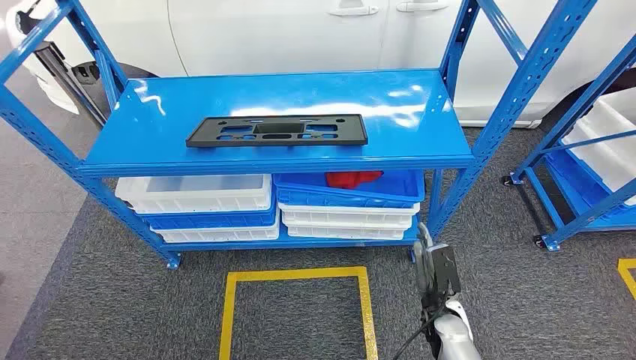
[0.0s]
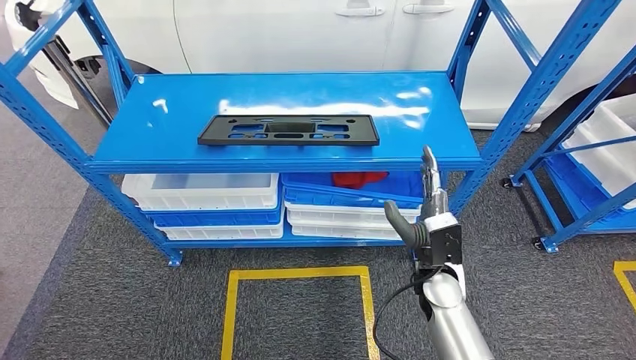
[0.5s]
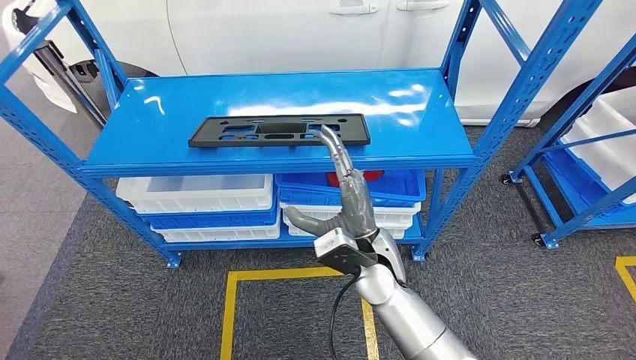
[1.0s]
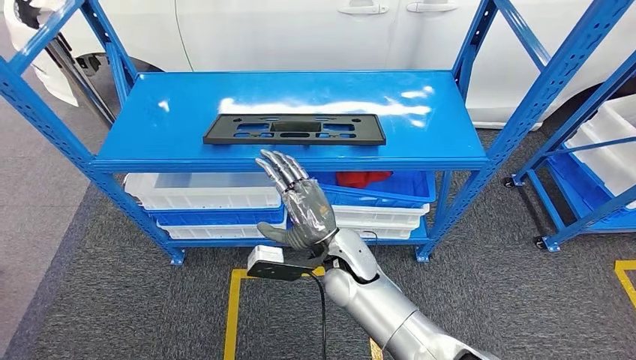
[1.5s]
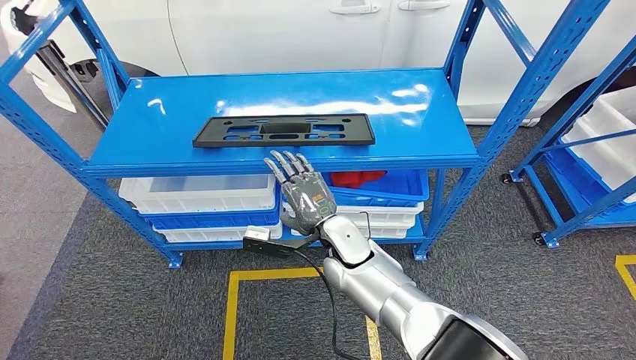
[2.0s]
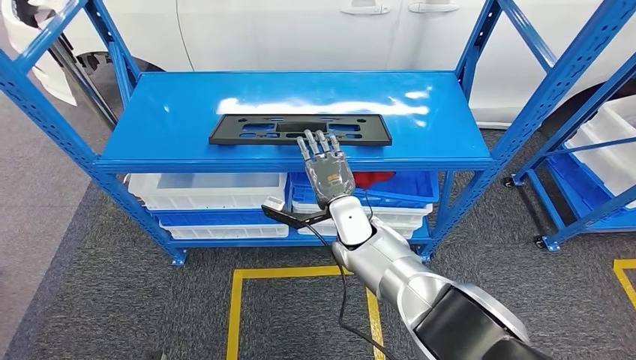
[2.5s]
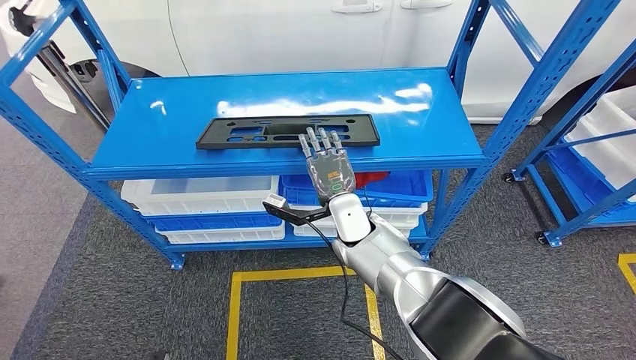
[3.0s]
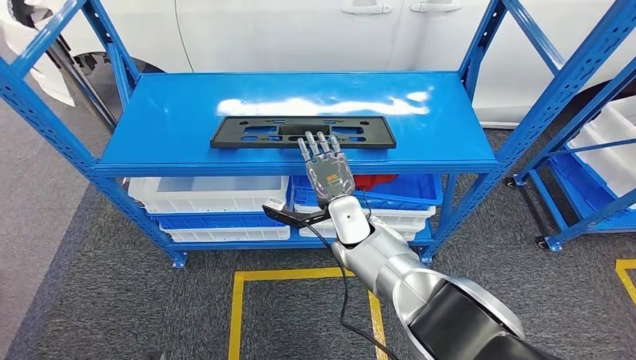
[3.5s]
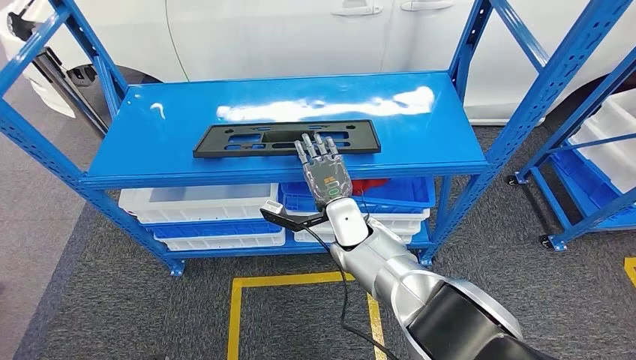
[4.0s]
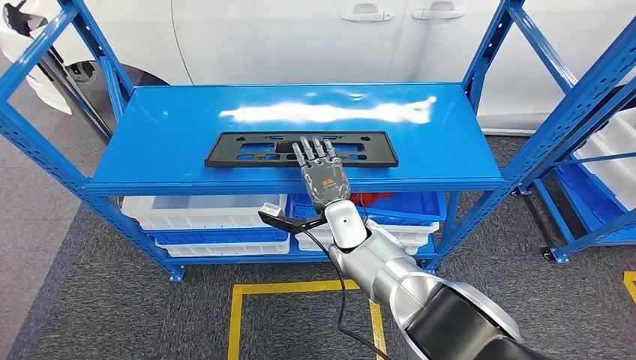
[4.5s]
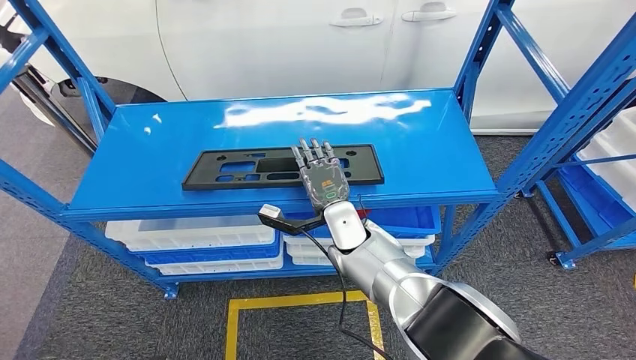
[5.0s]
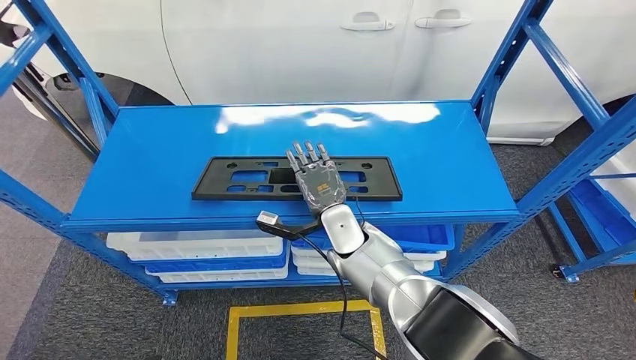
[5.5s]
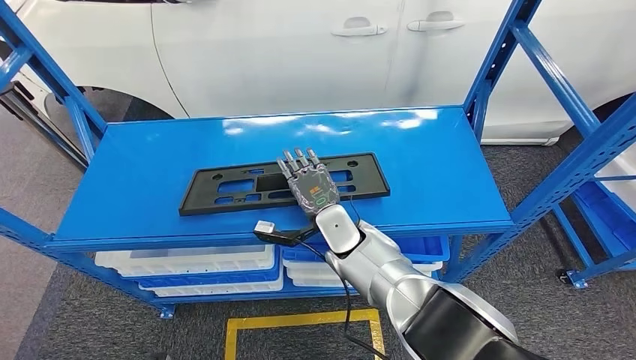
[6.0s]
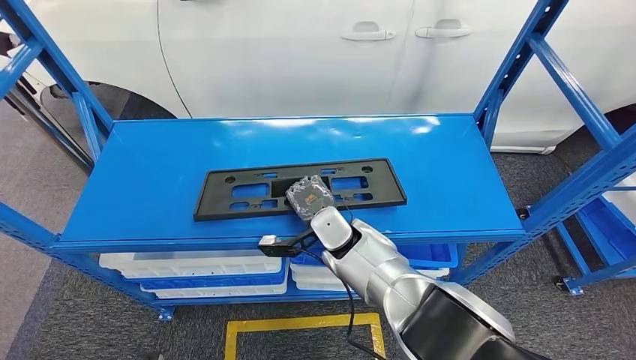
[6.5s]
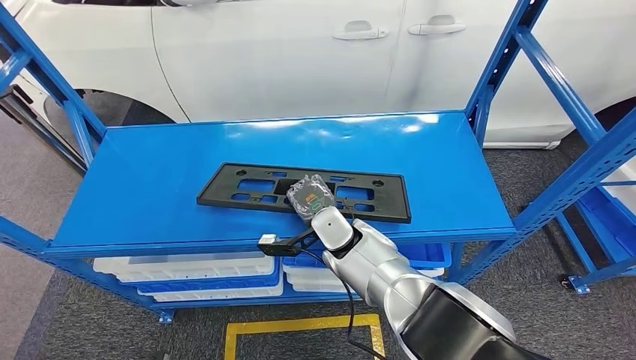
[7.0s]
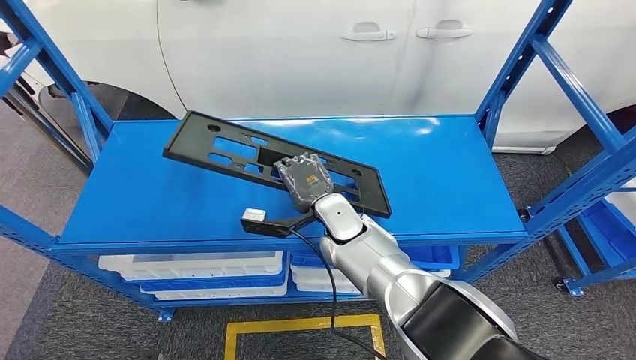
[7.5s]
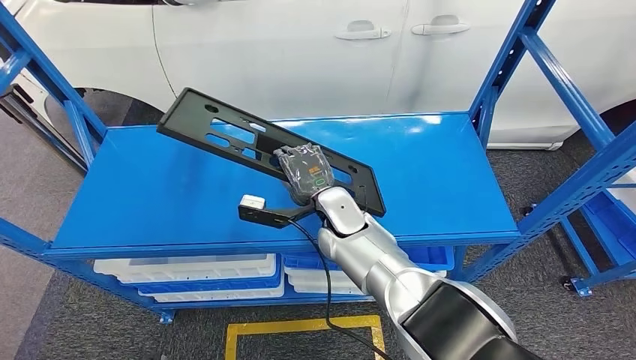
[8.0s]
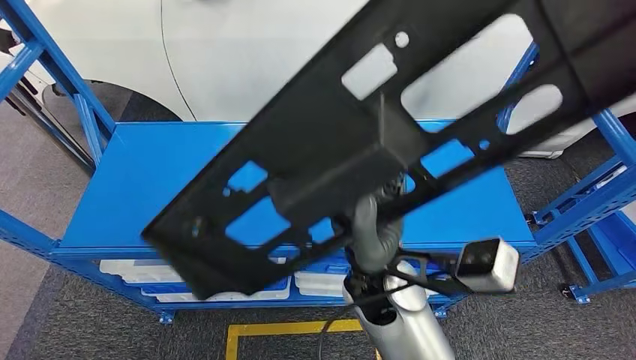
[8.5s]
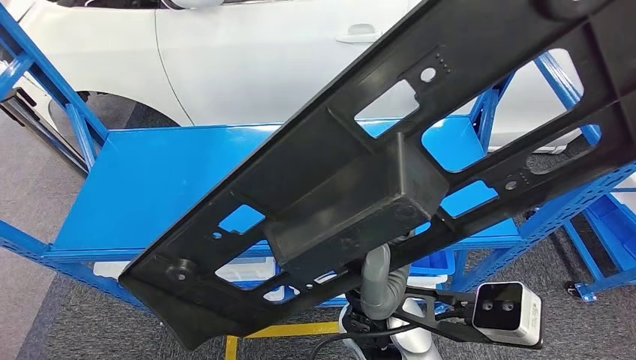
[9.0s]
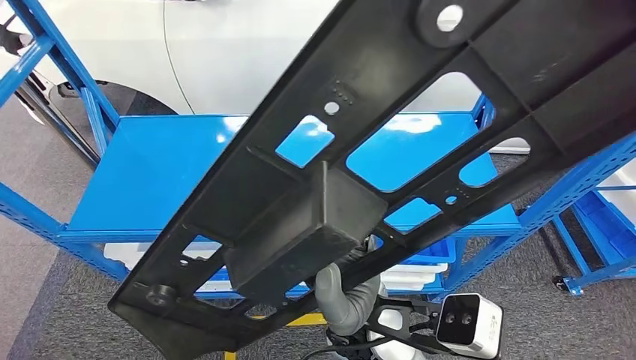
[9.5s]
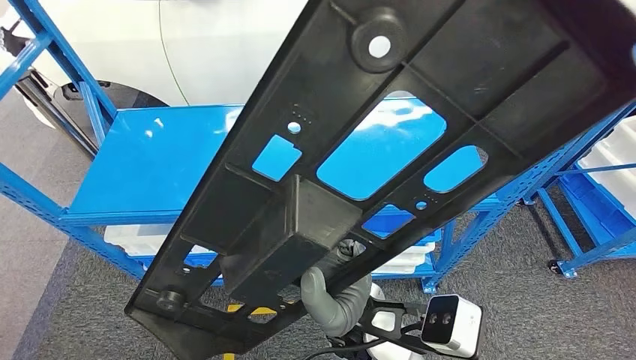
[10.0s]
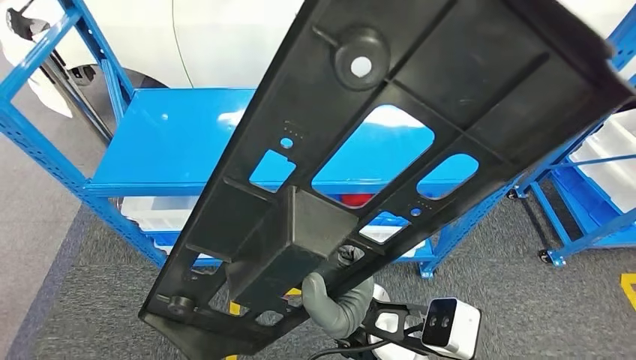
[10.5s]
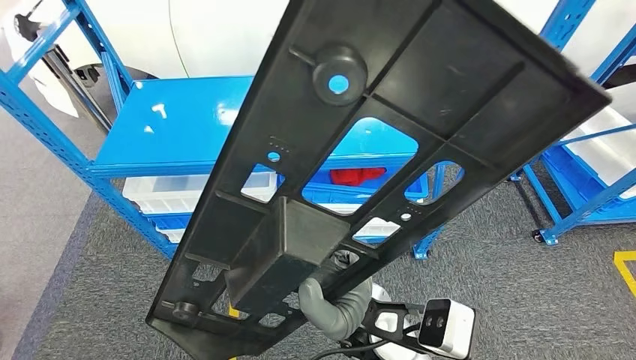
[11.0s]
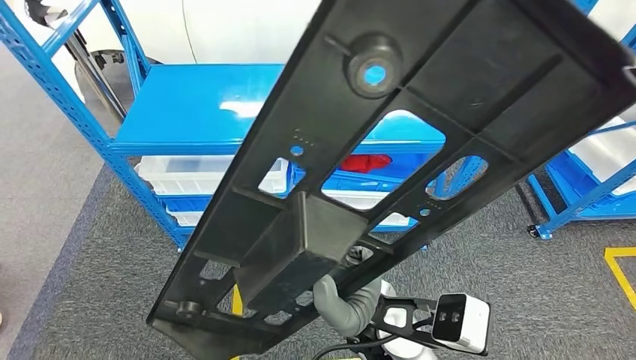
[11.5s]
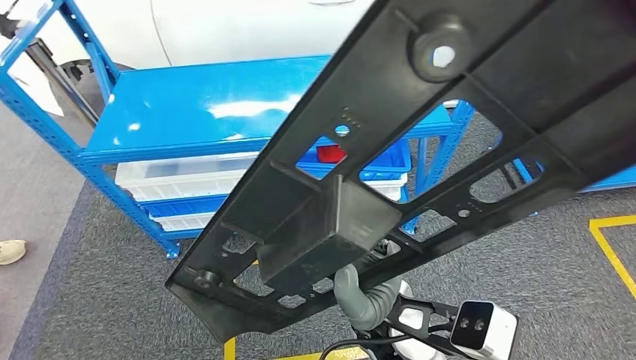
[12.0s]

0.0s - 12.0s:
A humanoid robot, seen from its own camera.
Step, 0.0s - 9.0s: Pick up the large material from the shelf.

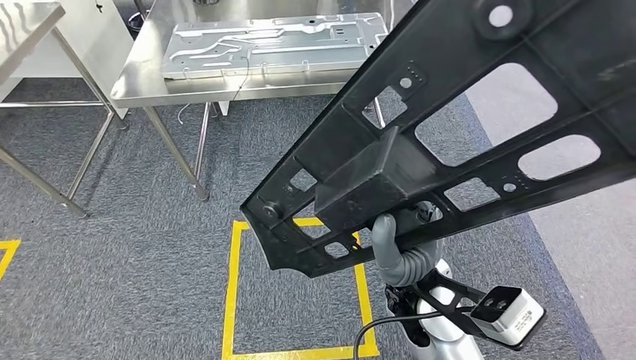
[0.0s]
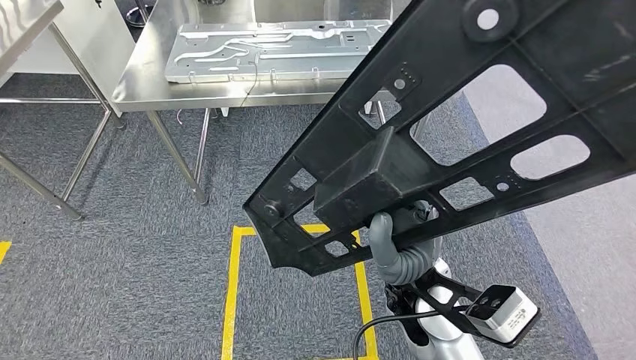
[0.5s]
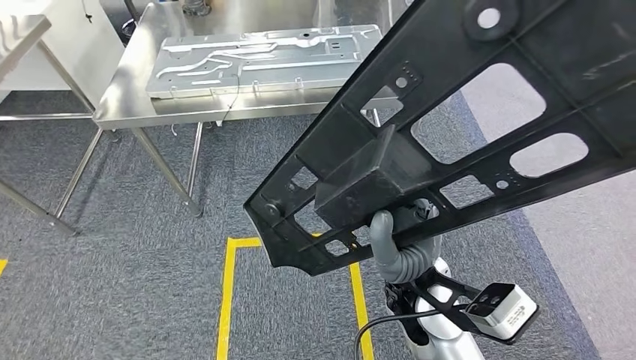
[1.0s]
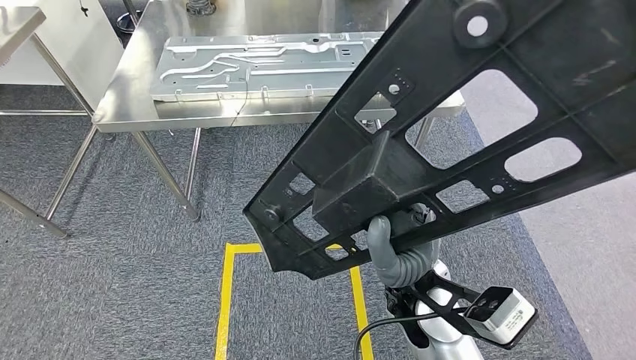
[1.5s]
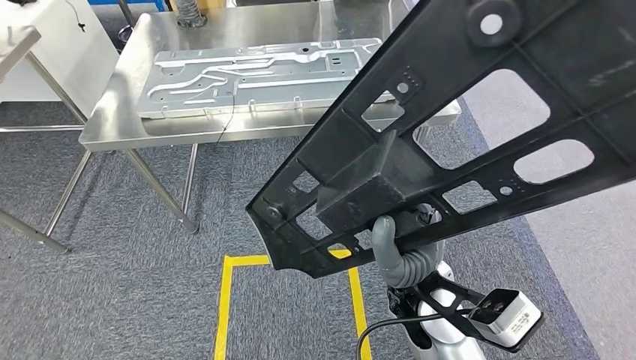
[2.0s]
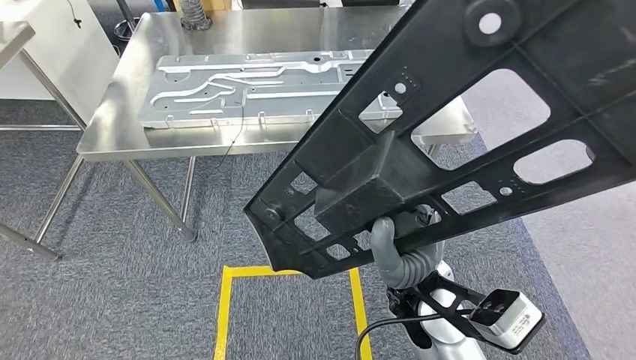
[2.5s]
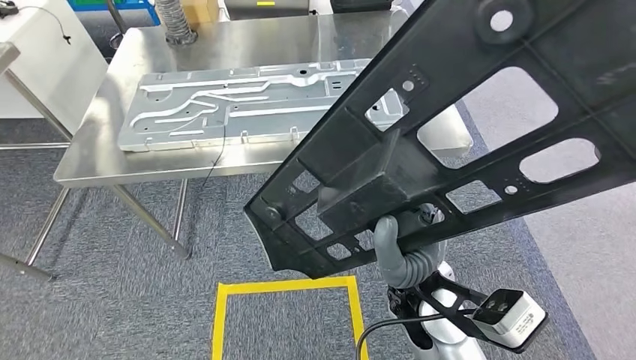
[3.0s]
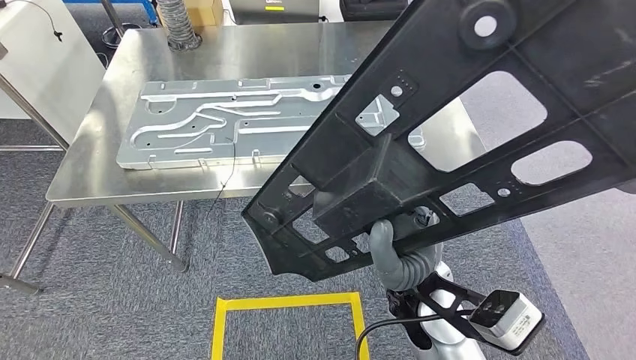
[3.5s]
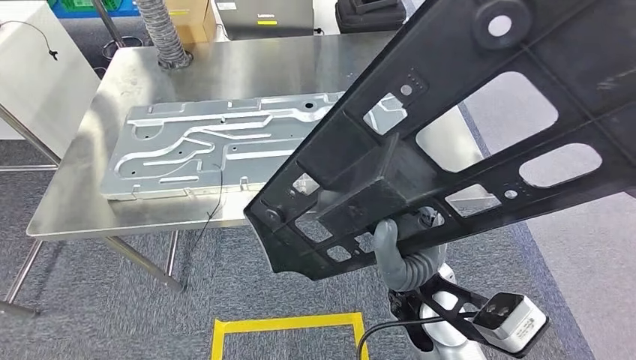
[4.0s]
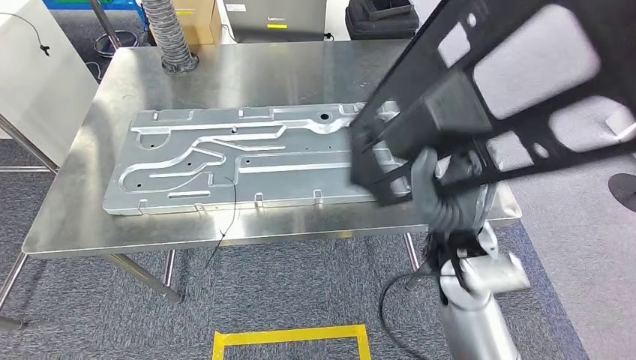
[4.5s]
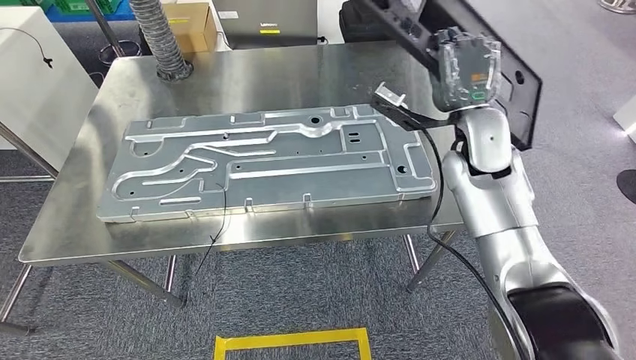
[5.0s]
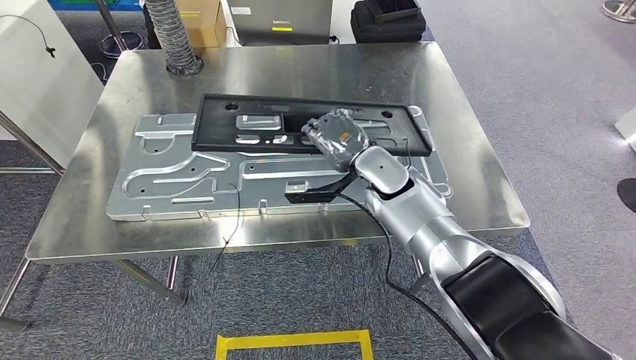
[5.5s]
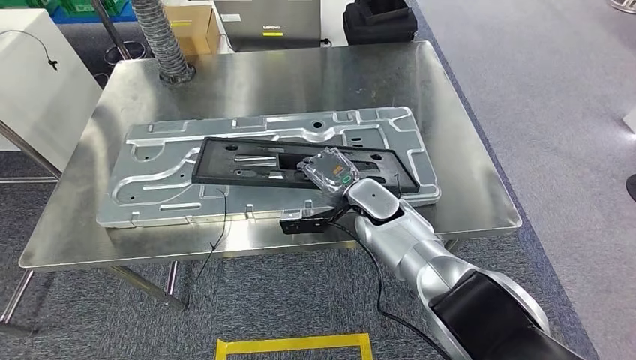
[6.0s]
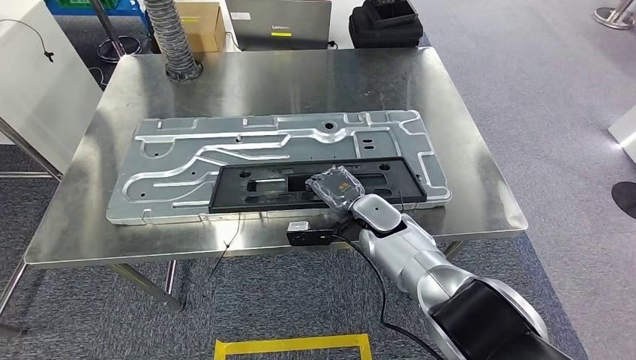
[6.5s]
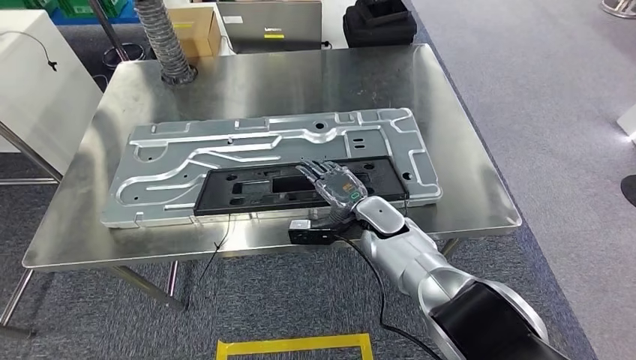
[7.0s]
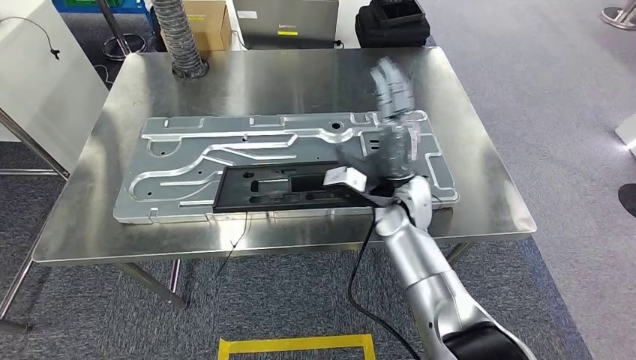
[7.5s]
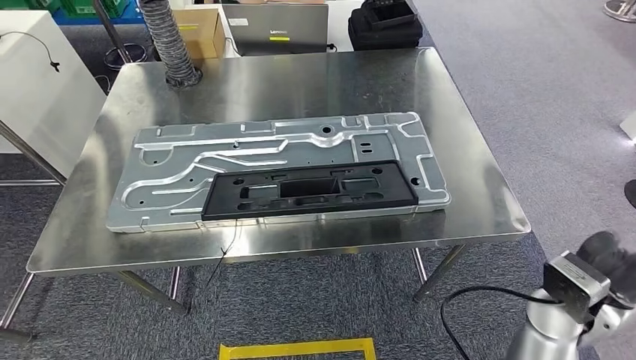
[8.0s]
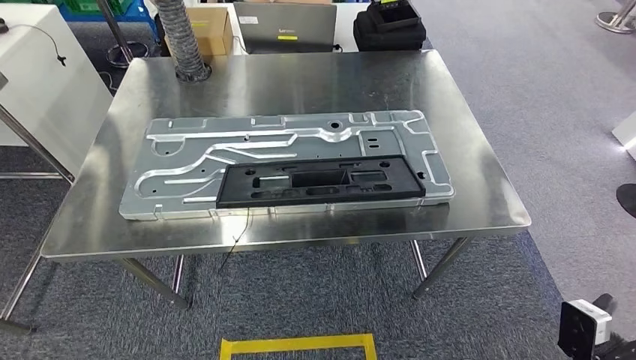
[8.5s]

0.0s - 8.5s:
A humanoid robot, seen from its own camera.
Step, 0.0s - 4.5s: Move the large material to the workbench.
Step, 5.0s - 8.0s: Insert the large material into the corresponding slot on the workbench.
